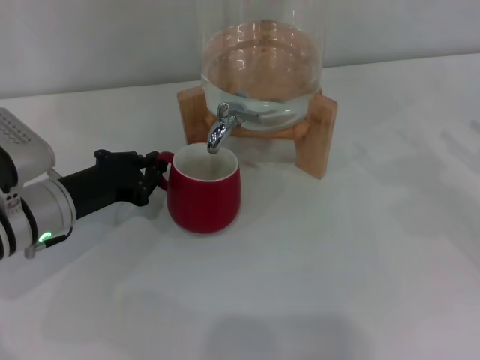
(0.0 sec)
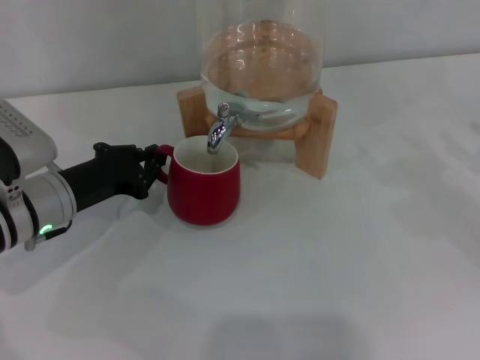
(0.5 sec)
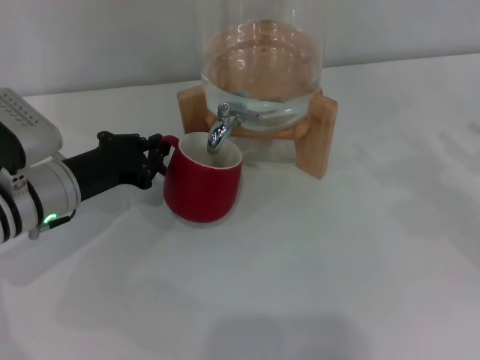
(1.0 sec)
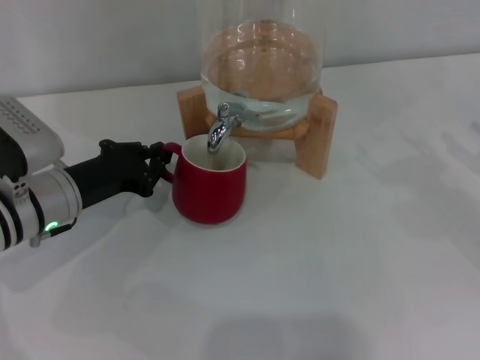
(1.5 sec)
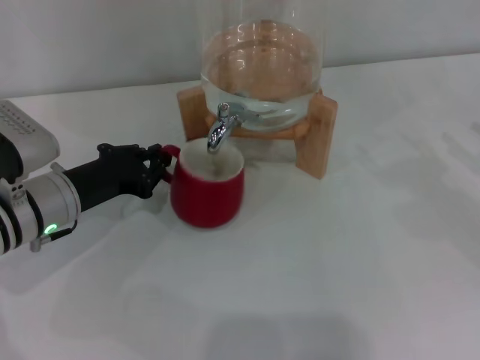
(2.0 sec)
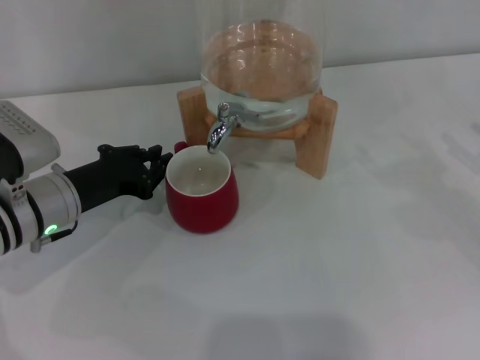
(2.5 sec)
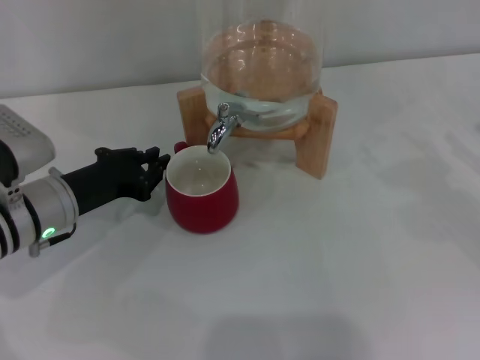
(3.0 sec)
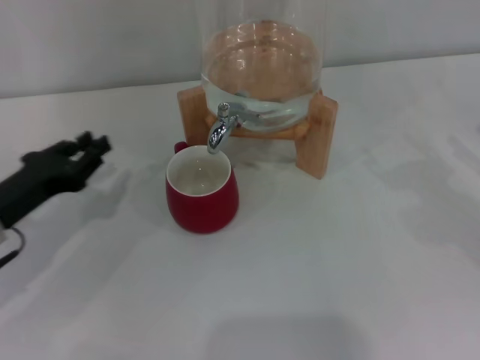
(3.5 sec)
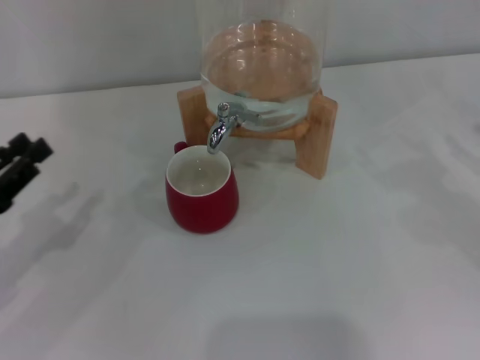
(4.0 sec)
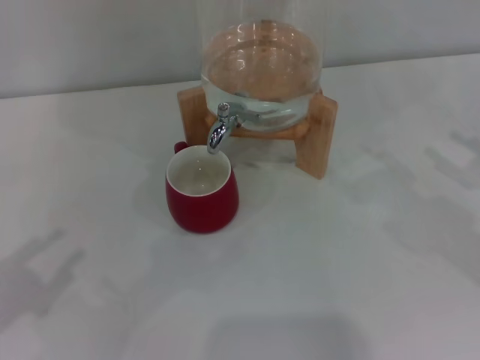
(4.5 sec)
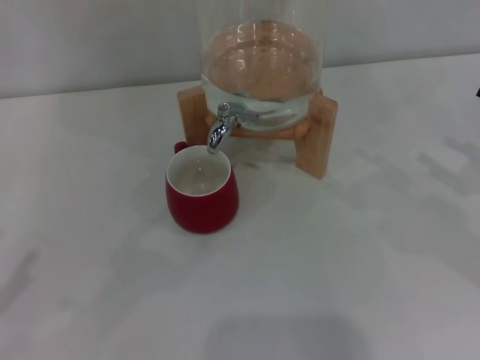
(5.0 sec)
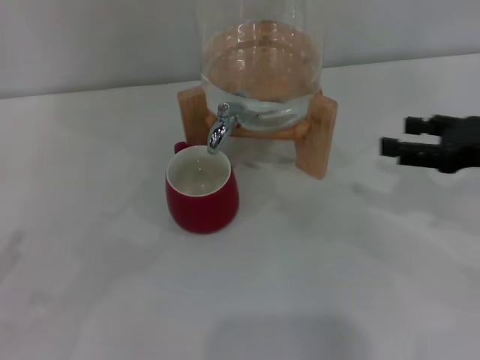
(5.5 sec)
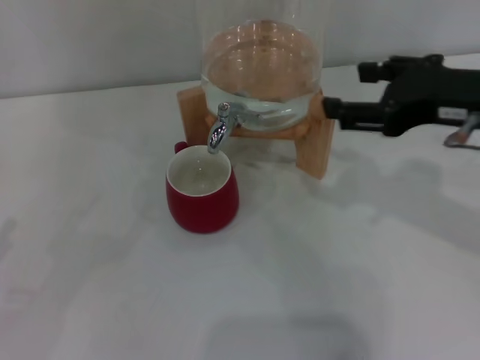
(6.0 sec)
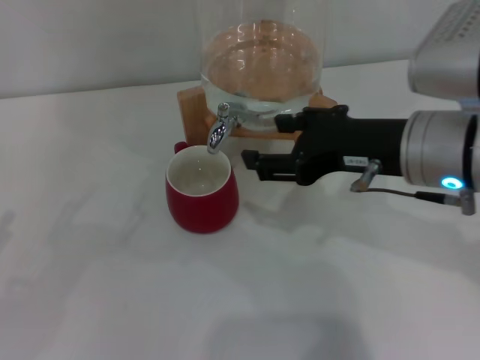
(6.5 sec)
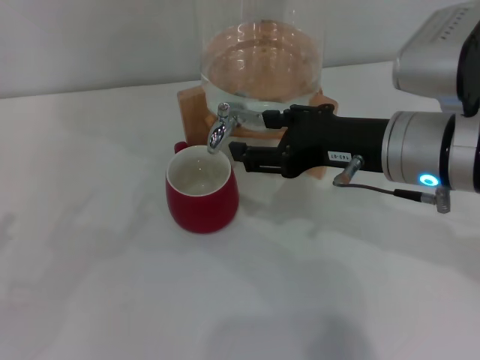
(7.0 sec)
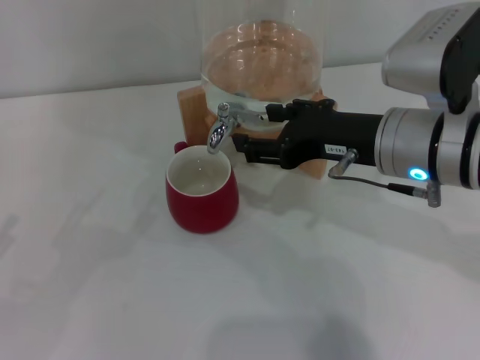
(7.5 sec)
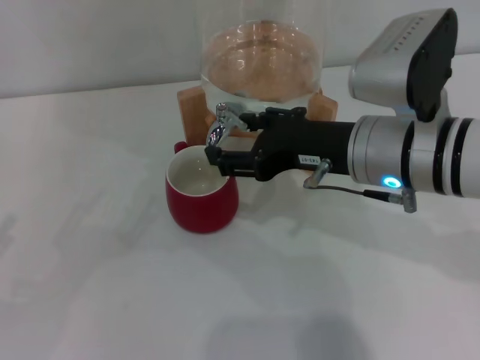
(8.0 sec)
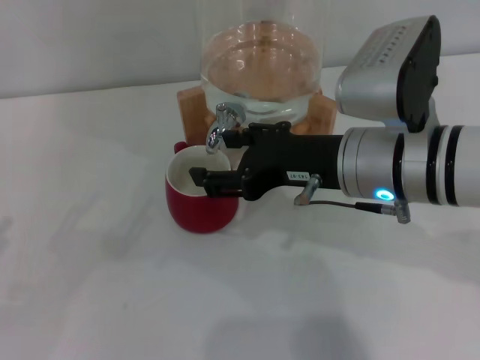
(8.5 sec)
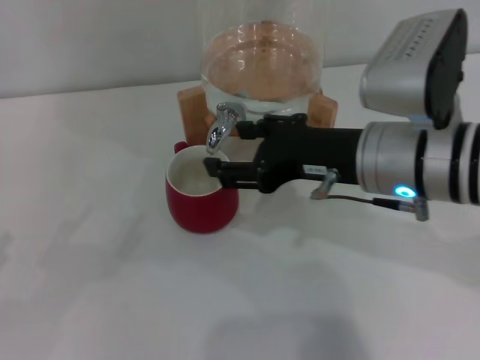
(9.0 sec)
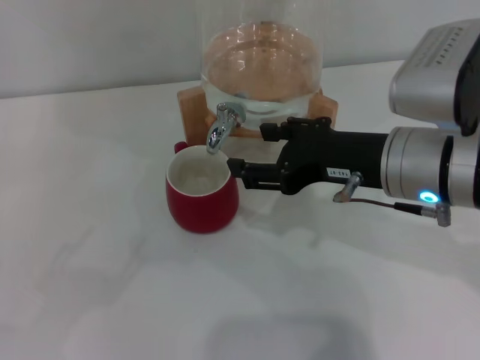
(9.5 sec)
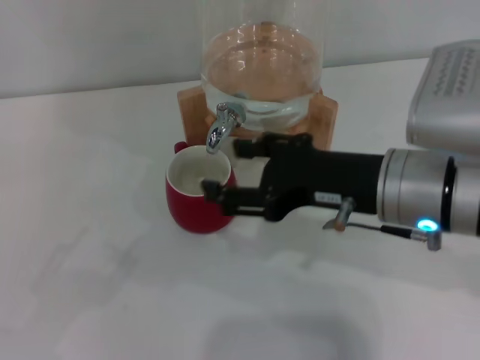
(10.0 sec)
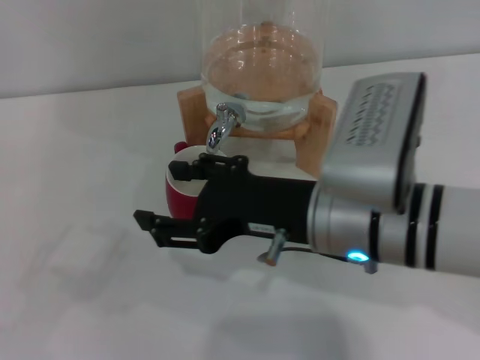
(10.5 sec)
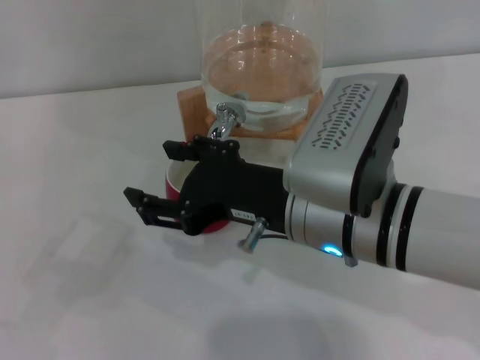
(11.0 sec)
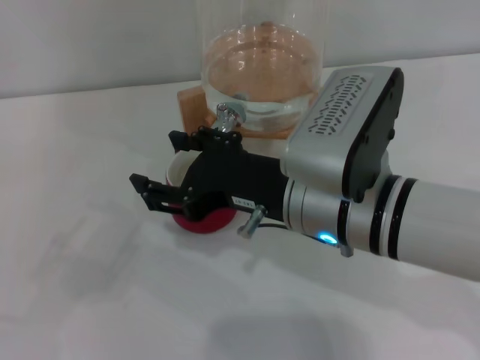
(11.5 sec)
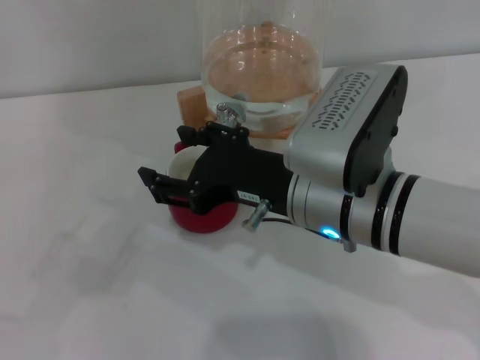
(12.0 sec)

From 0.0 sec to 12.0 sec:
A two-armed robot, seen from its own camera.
Task of the whole recording: the left gripper pick up the red cup and place it horizontally under the faucet, the right gripper turn on the faucet to fill the cup, and then turn off the faucet.
Step, from 0.0 sec to 3.0 sec: Move the cup beneath the water dispenser nozzle with the left gripper.
Step, from 3.5 sec to 9.0 sec: Open the dispenser valve and fill the cup with water with the right gripper.
From 0.0 sec to 2.0 sec: The grippers move only a little.
From 2.0 sec to 4.0 sec: The left gripper travels to the left and backward by some 15 cm, and opens up.
From 4.0 sec to 6.0 sec: The right gripper heads to the left and upward, covering approximately 20 cm, while the left gripper is displaced backward and to the left by about 10 cm, and opens up.
From 6.0 sec to 8.0 sec: The right gripper moves to the left and downward, approximately 10 cm.
From 8.0 sec to 10.0 sec: The left gripper shifts some 5 cm backward.
From 10.0 sec to 12.0 sec: The right gripper heads to the left, covering about 5 cm.

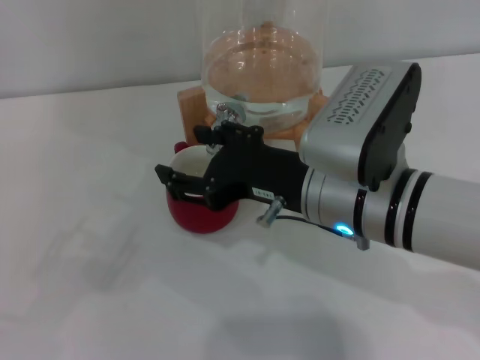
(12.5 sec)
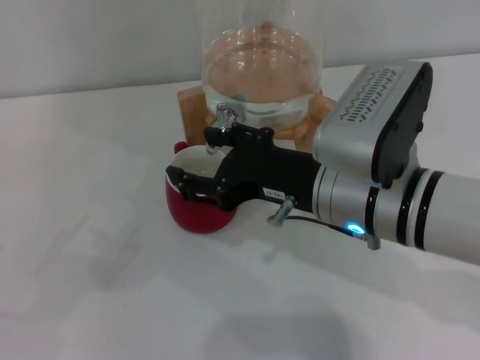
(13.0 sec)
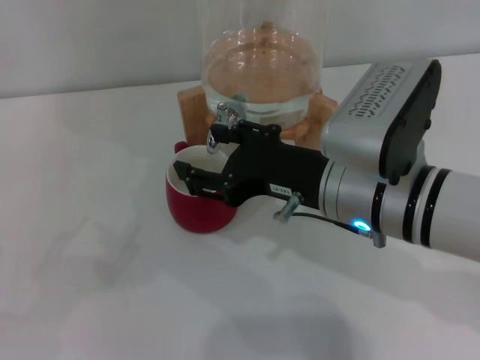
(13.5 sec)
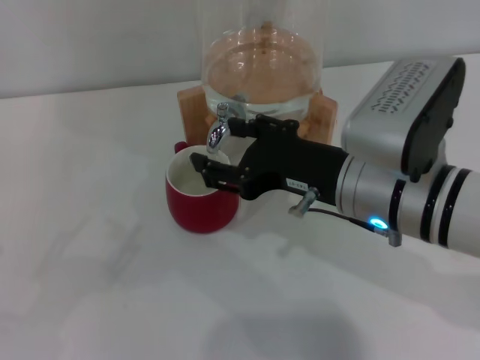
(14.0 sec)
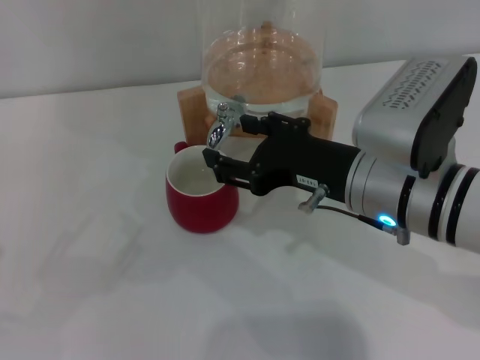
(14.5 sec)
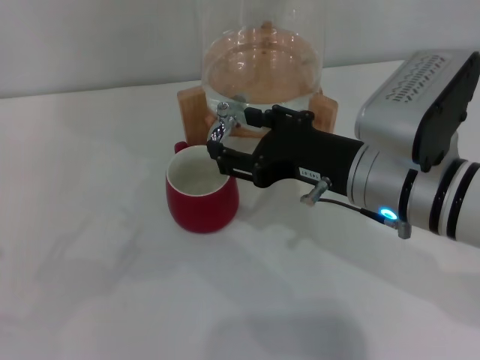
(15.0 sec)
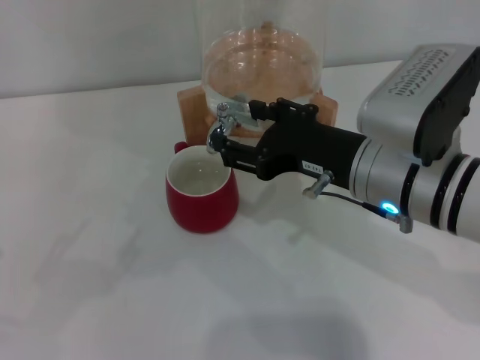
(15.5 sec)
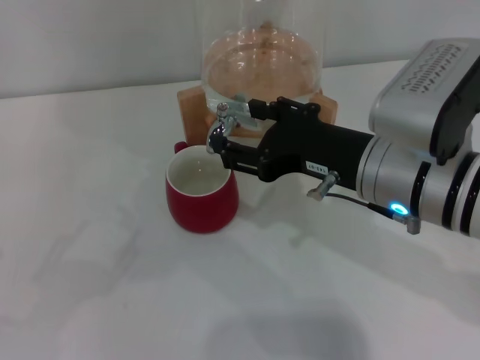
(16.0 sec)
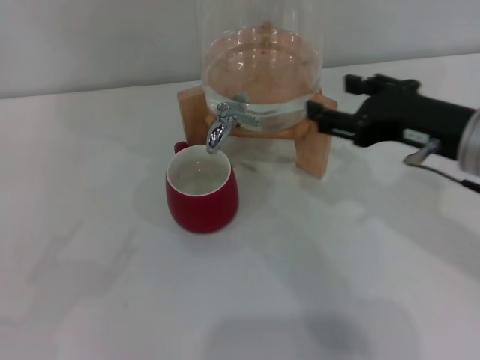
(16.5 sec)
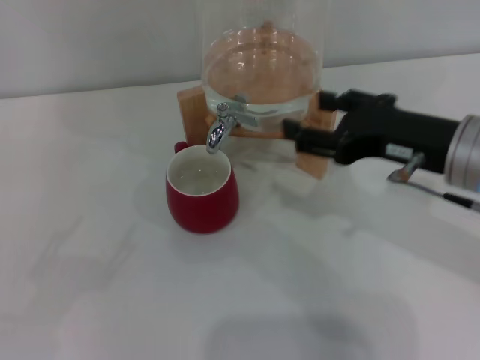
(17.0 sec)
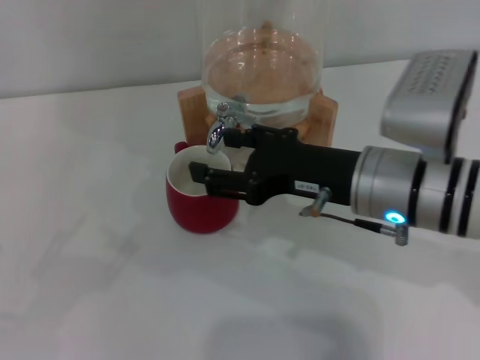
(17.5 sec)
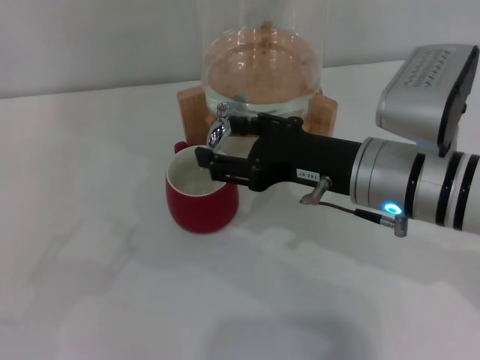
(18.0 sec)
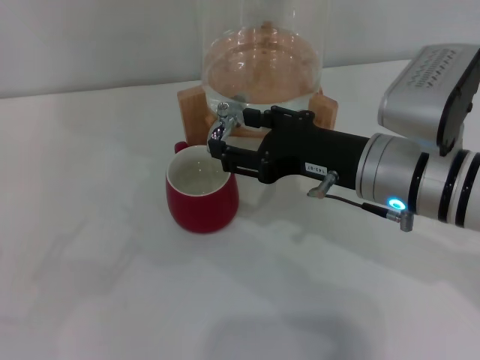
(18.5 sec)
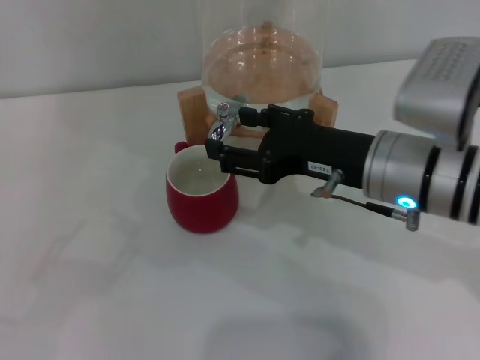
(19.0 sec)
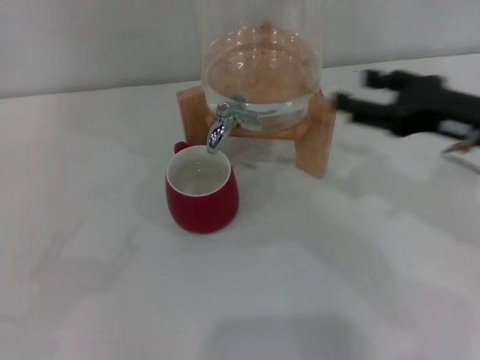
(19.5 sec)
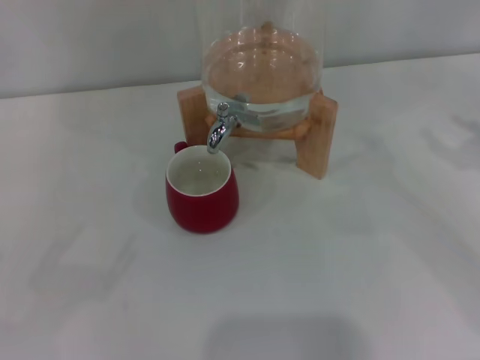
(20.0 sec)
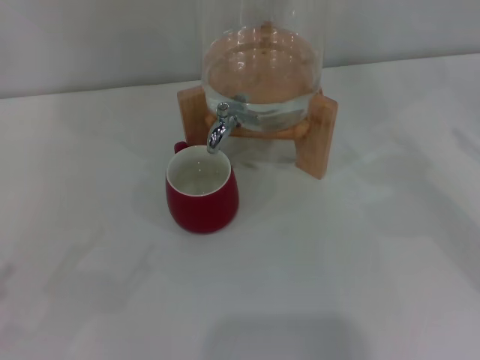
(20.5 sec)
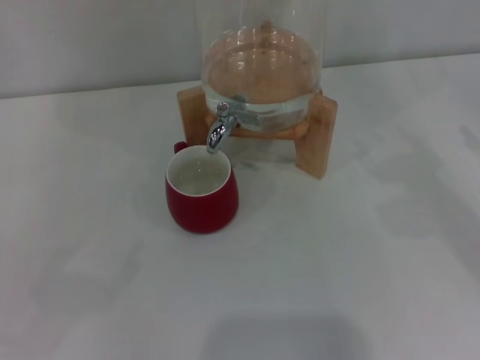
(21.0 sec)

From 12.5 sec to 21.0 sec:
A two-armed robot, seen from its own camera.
Task of the whole recording: the left gripper pick up the red cup and place it horizontally under the faucet, the right gripper turn on the faucet to fill the cup, and then turn off the faucet.
Step, from 12.5 sec to 16.0 sec: Close the dispenser valve with the right gripper.
From 12.5 sec to 14.5 sec: The grippers stay close to where they were, moving slightly.
From 14.5 sec to 16.5 sec: The right gripper travels to the right by approximately 10 cm.
From 16.5 sec to 19.0 sec: The right gripper shifts approximately 5 cm to the left.
From 19.0 sec to 21.0 sec: The right gripper travels to the right by about 25 cm.
